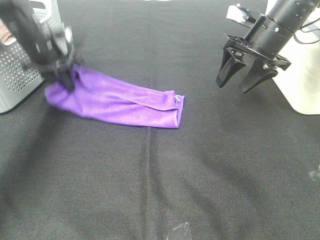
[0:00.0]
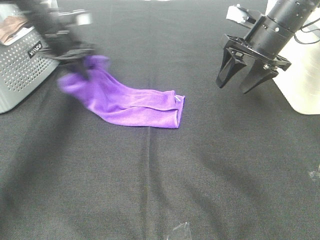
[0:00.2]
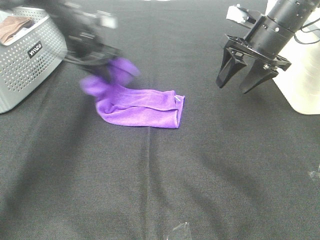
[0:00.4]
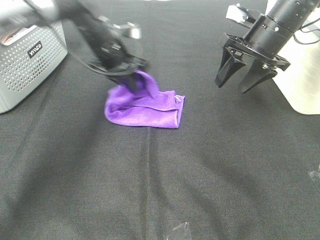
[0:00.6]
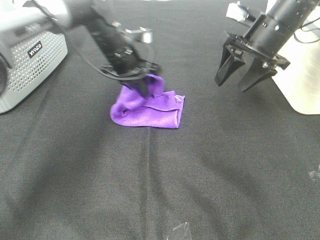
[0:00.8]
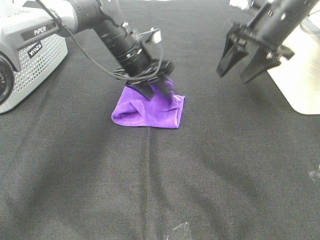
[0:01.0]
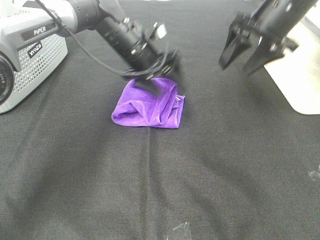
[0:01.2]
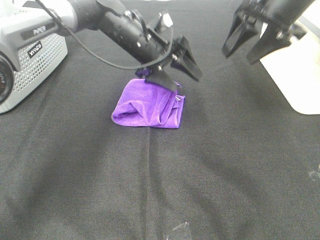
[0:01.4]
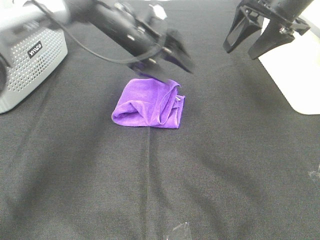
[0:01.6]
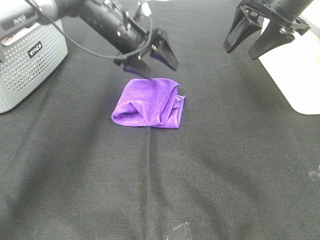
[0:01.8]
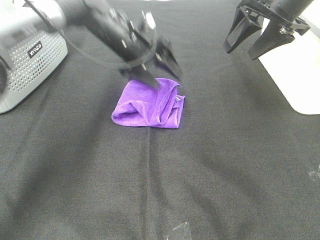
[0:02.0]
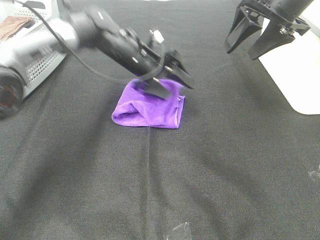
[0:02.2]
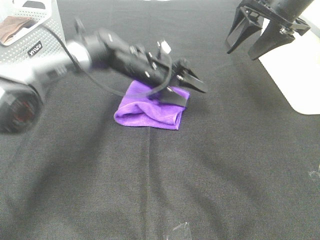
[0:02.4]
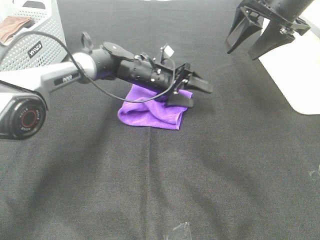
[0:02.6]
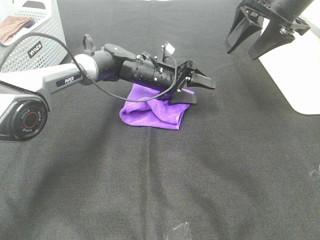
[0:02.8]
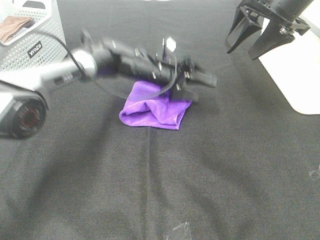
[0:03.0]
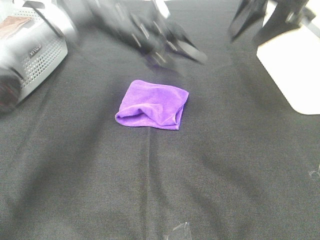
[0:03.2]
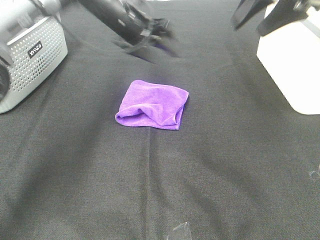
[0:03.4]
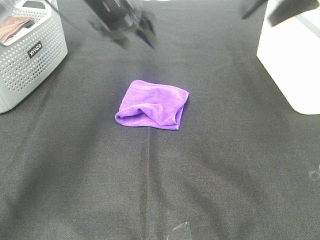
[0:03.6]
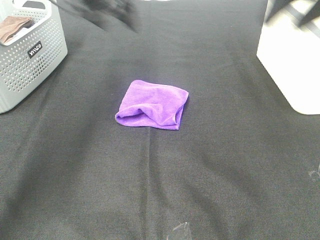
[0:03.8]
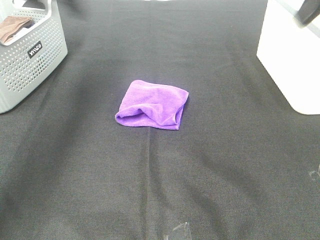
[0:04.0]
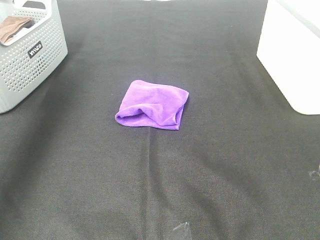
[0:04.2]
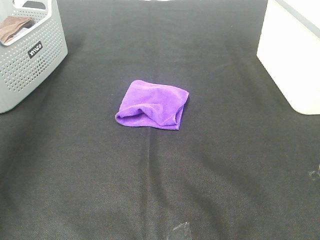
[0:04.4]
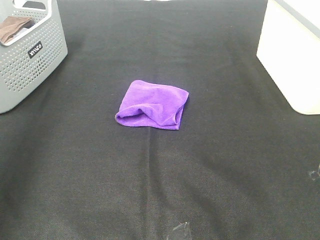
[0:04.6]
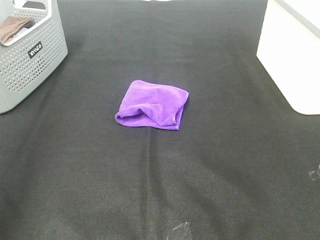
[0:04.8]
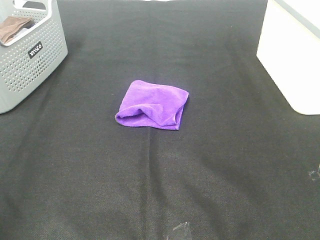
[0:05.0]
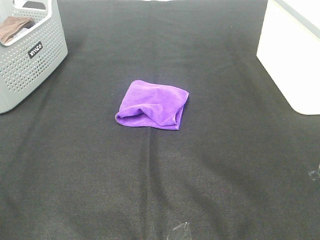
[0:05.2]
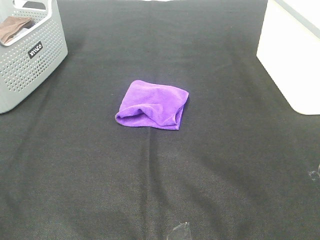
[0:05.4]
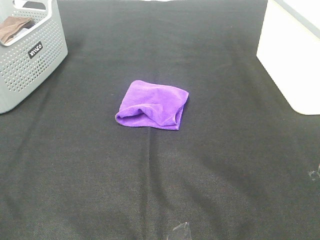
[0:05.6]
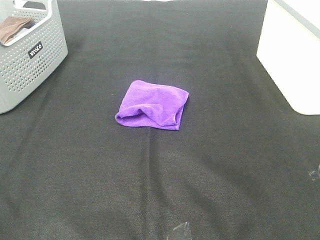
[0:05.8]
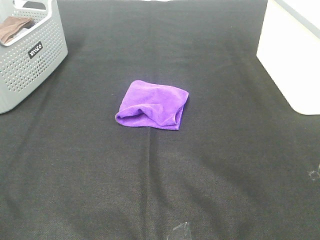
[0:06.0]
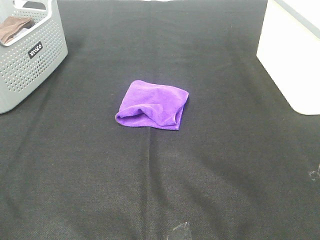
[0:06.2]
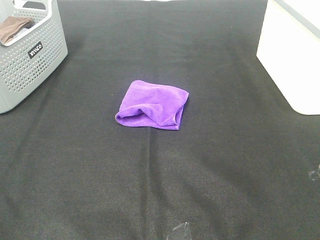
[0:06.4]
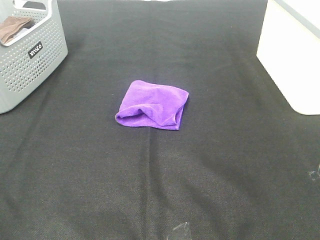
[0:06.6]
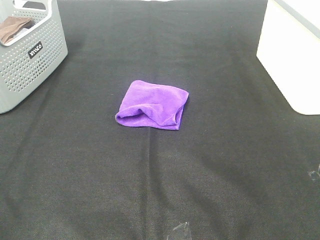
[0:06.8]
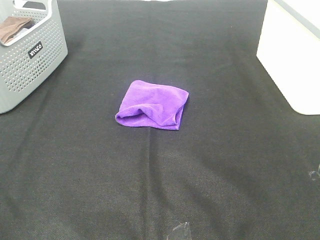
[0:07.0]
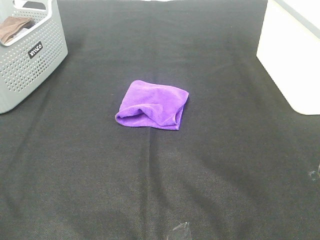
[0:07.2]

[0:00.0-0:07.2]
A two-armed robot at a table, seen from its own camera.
Task of the whole recording: Fold towels.
0:00.0 to 0:01.4: The left gripper shifts approximately 20 cm to the right, and opens; the right gripper heads upward, covering some 5 cm.
0:01.4 to 0:02.8: The left gripper shifts about 10 cm downward.
0:02.8 to 0:04.4: The left gripper travels to the left, upward and backward by approximately 50 cm. Meanwhile the right gripper heads backward and upward, covering roughly 25 cm.
0:04.4 to 0:05.8: The left gripper travels backward and downward by approximately 30 cm.
0:05.8 to 0:07.2: Both grippers stay about where they are.
